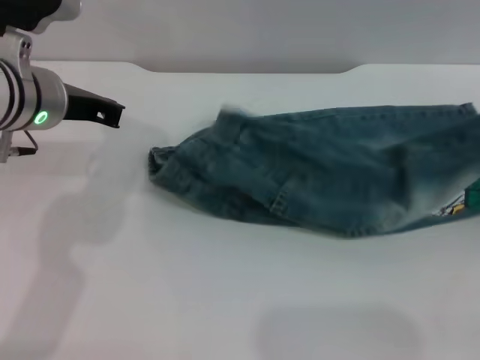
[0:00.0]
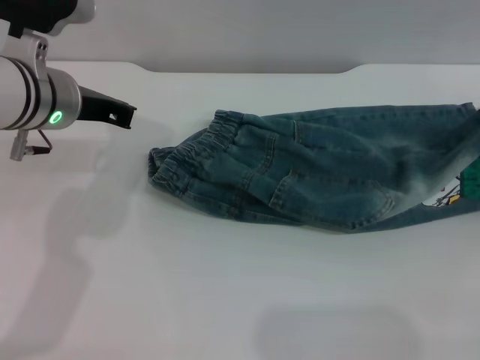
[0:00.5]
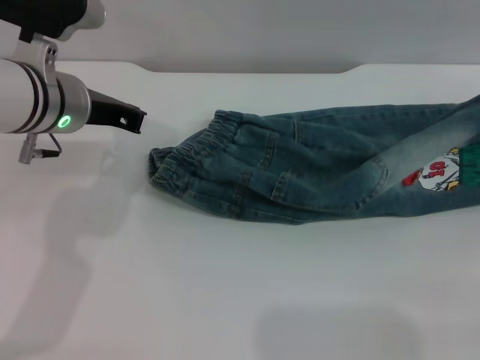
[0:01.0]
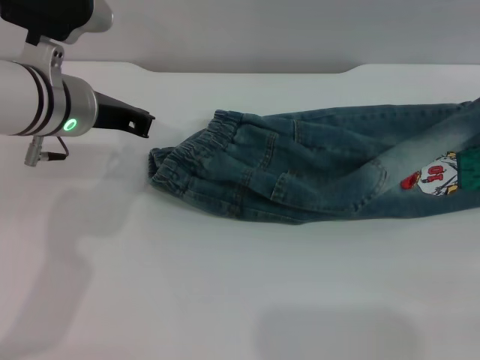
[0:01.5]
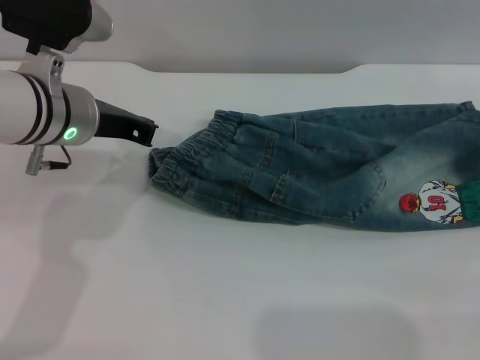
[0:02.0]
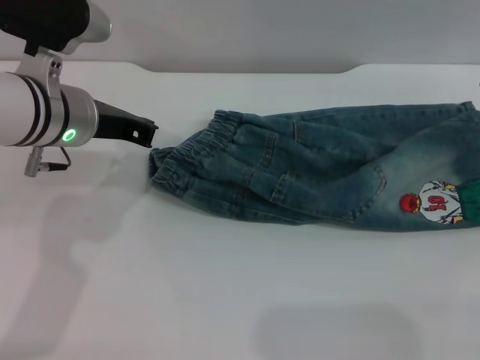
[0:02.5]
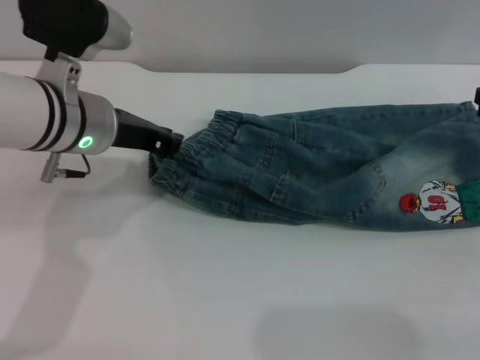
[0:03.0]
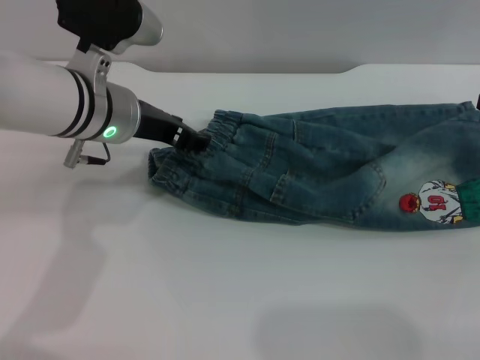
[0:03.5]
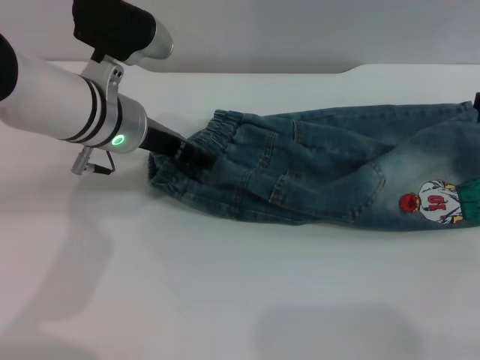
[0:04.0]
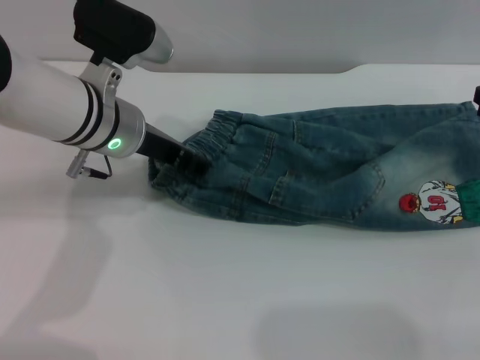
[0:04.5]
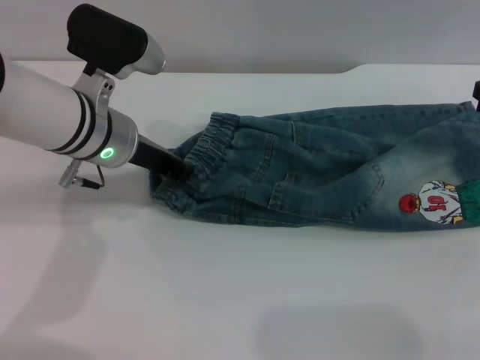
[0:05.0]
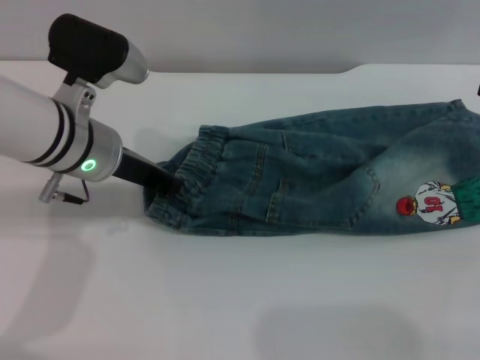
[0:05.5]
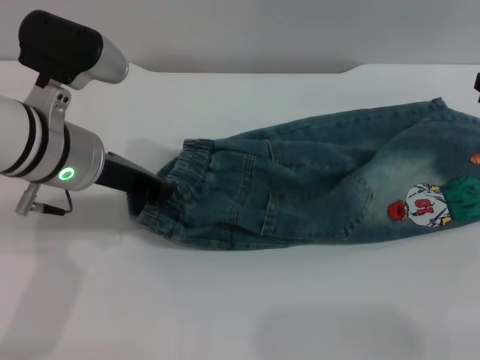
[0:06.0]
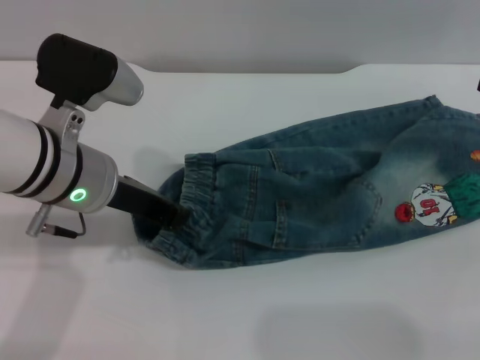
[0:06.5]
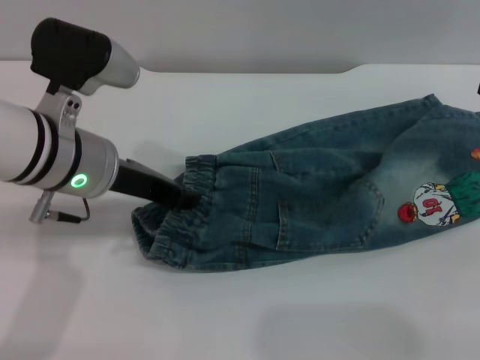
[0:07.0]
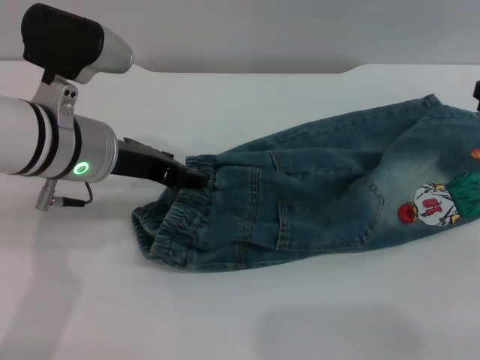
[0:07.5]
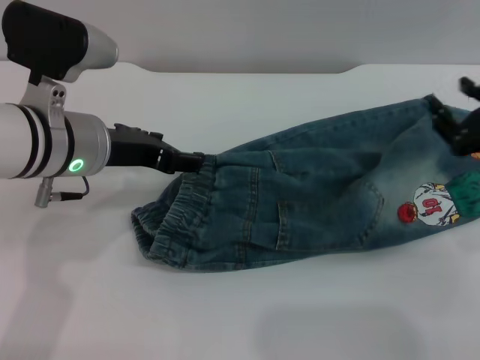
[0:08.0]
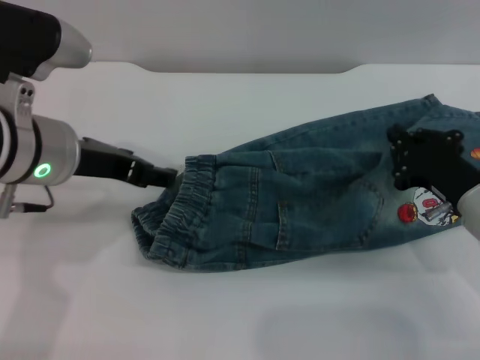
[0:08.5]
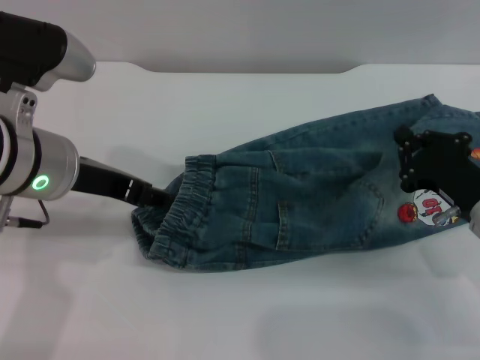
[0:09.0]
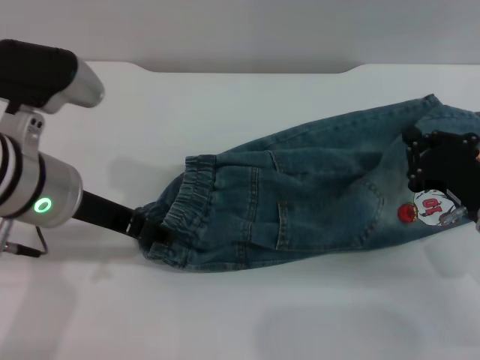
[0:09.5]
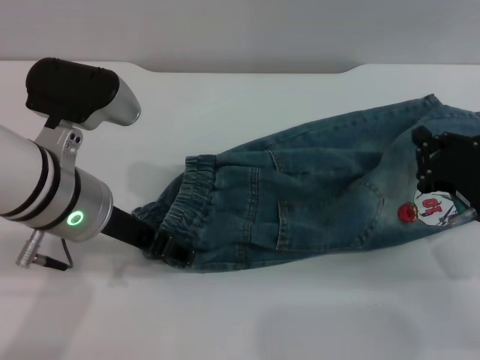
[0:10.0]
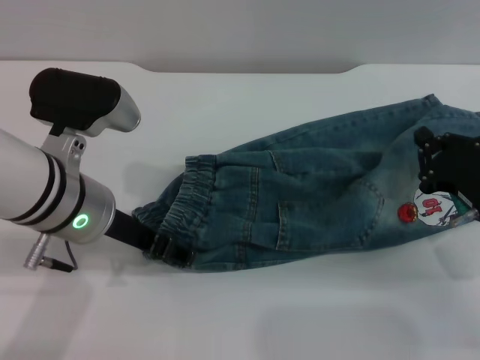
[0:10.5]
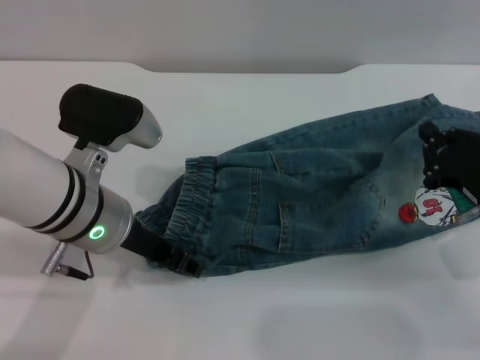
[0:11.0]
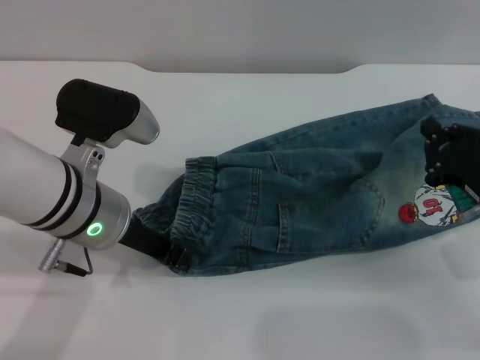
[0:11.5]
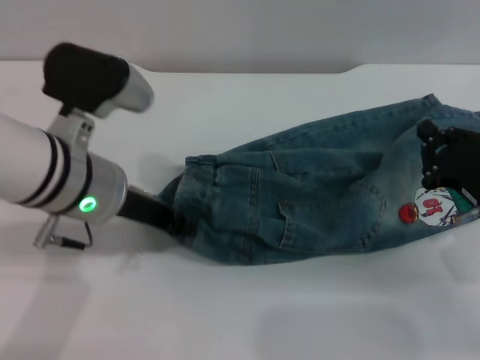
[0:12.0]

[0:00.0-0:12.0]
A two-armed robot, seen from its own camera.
Step, 0:00.0 to 0:02.0: Fold the bottom of the pants upward with both grippers.
0:00.0 to 0:02.0: The right gripper travels forward by roughly 5 cm, and opens up.
0:02.0 to 0:04.0: The left gripper opens up. Meanwhile the right gripper is displaced backward and to the left by approximately 10 cm, and opens up.
0:04.0 to 0:06.0: The left gripper shifts roughly 5 cm backward, and closes.
0:06.0 to 0:08.0: The left gripper opens its fingers, while the right gripper shifts by some 5 cm.
0:08.0 to 0:10.0: The right gripper is displaced downward by roughly 5 cm, and closes up.
0:10.0 to 0:12.0: The left gripper closes its fingers.

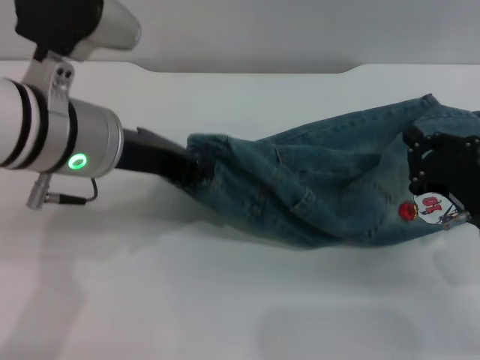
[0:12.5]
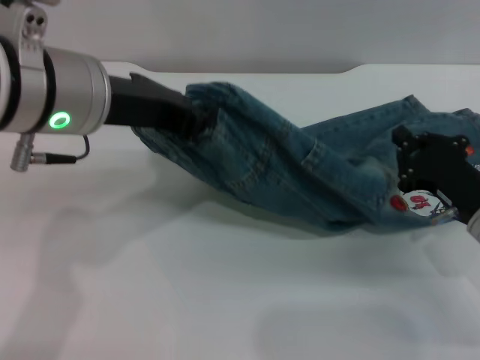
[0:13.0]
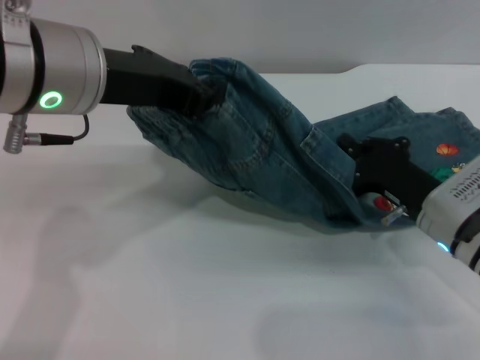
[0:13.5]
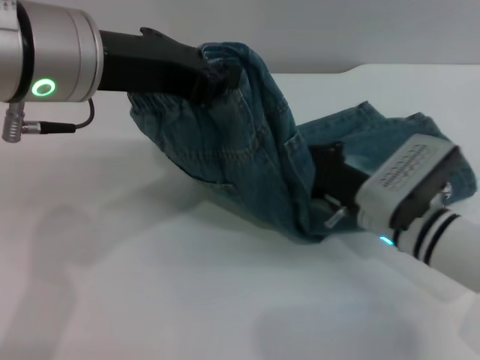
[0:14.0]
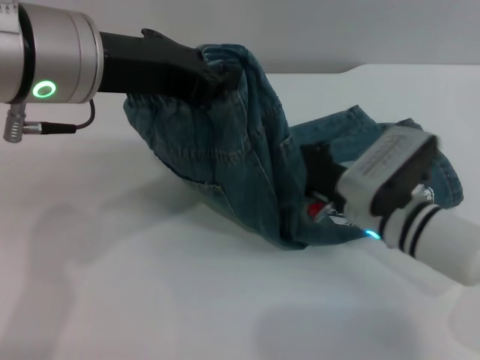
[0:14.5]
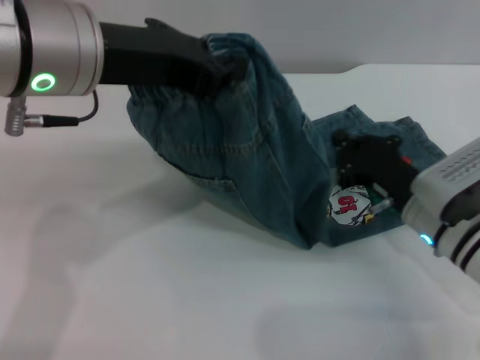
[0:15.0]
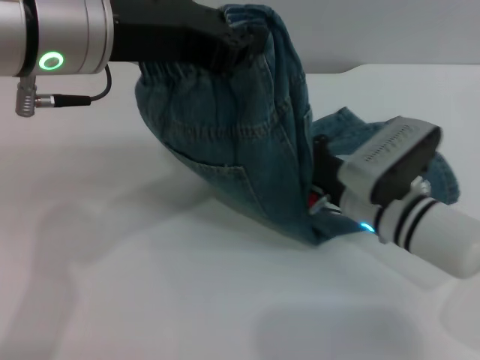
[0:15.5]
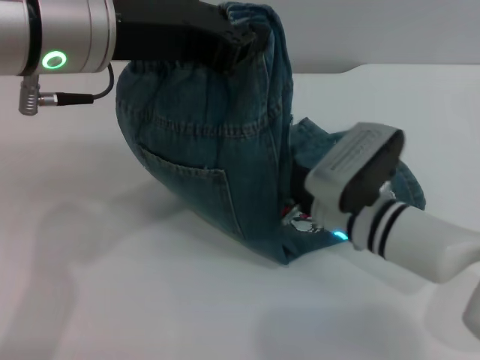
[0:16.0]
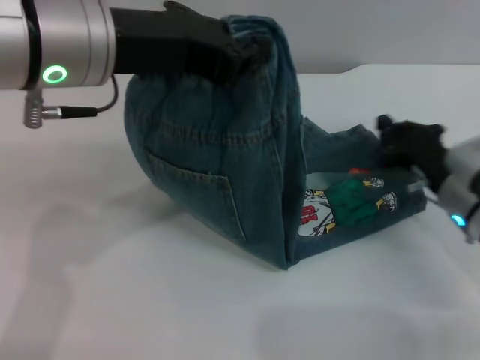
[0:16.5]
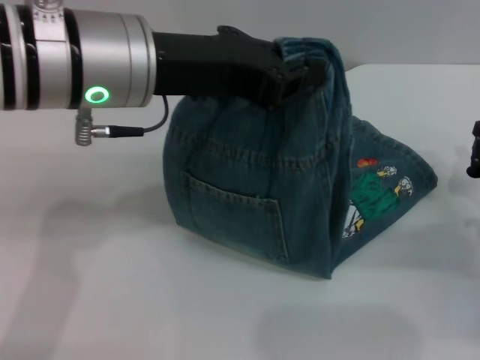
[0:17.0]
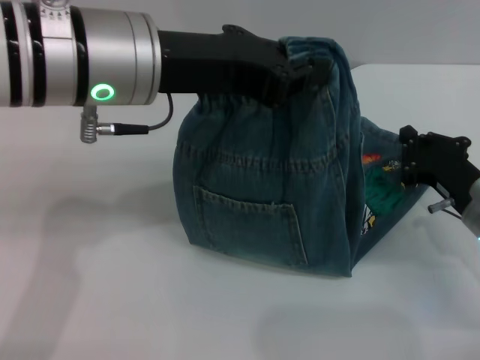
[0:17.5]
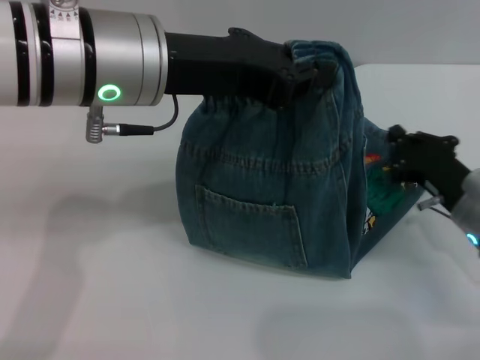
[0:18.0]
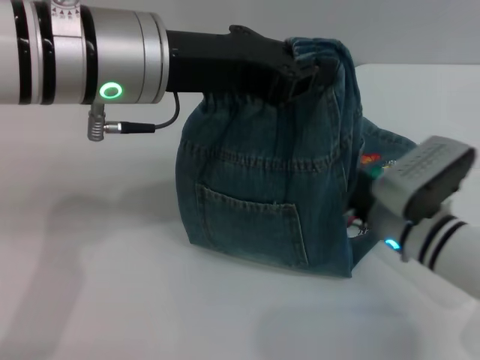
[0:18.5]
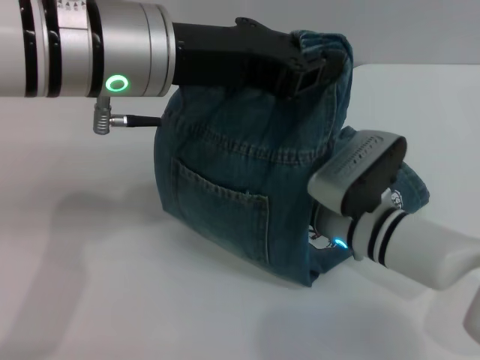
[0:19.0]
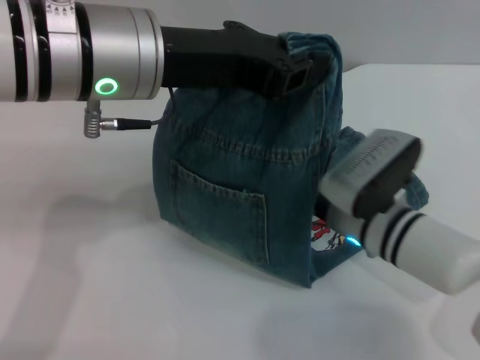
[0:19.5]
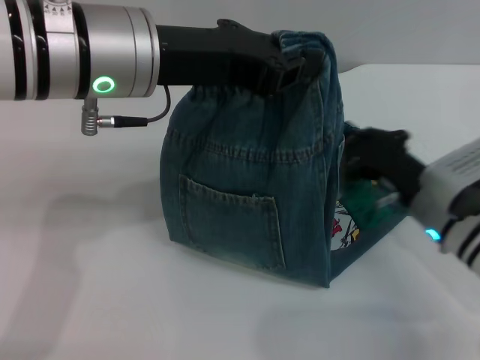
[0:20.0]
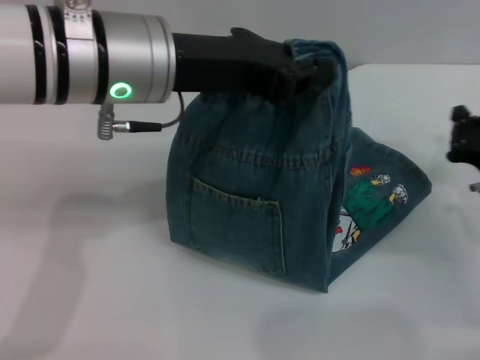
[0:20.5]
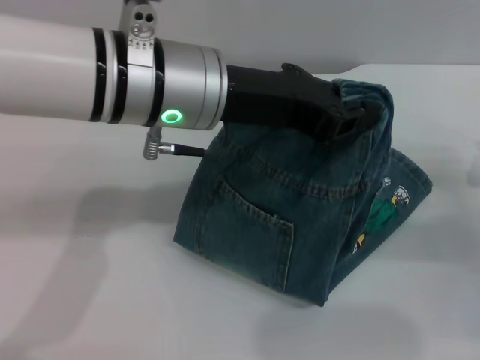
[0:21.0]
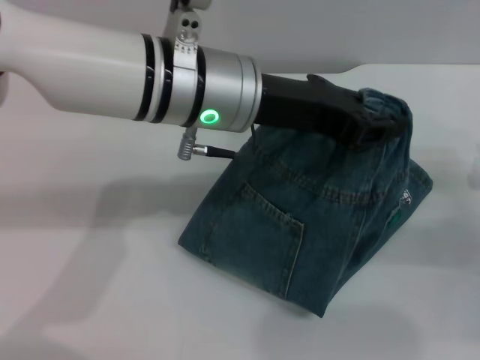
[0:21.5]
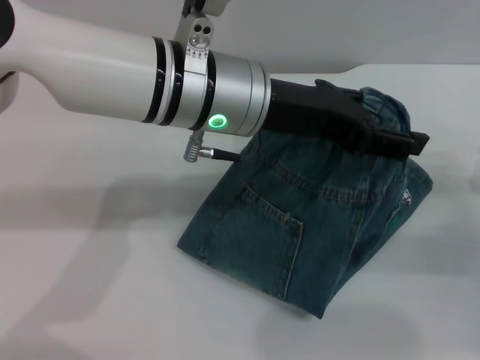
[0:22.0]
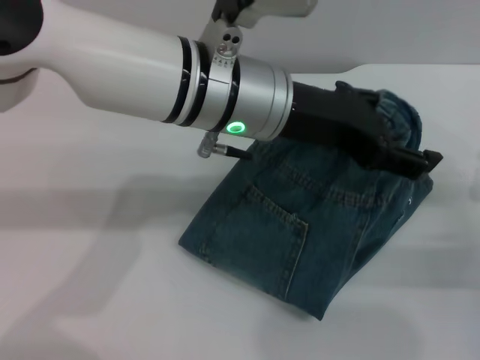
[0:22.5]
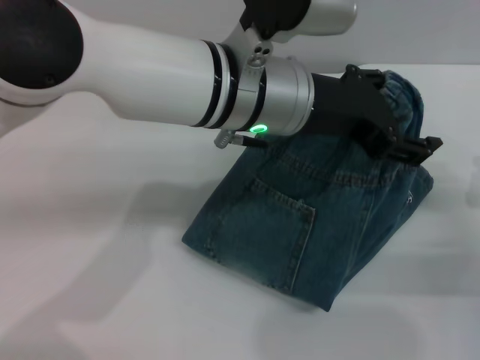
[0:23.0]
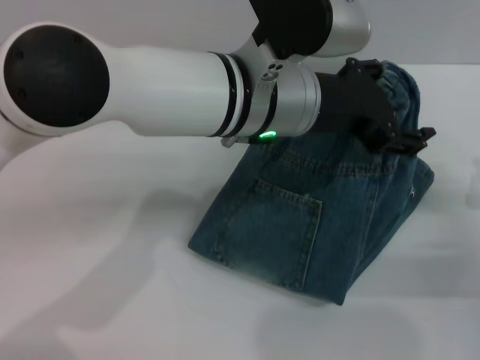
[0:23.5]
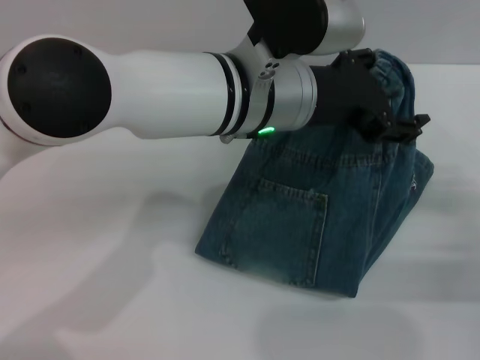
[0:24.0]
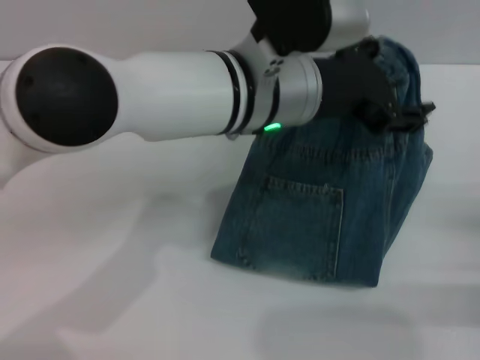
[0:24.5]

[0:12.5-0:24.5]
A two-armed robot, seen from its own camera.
0:12.5 to 0:14.5: The right gripper is displaced to the left and forward by approximately 15 cm. Meanwhile the left gripper is displaced upward by roughly 5 cm.
0:14.5 to 0:16.5: The right gripper goes left and right, about 10 cm each way, reversing 2 times.
0:16.5 to 0:18.5: The right gripper shifts some 5 cm to the left.
0:18.5 to 0:20.5: The right gripper travels to the right by about 10 cm.
0:20.5 to 0:22.5: The left gripper travels to the right by approximately 10 cm, and opens up. Meanwhile the right gripper ends up some 5 cm from where it was.
0:22.5 to 0:24.5: The right gripper moves some 5 cm.

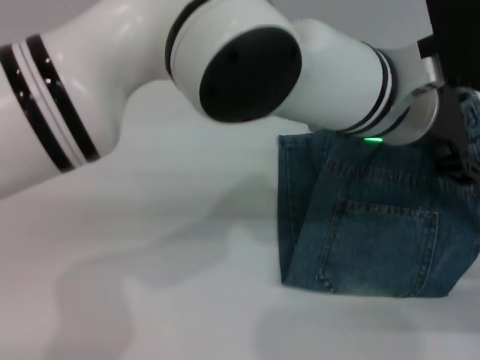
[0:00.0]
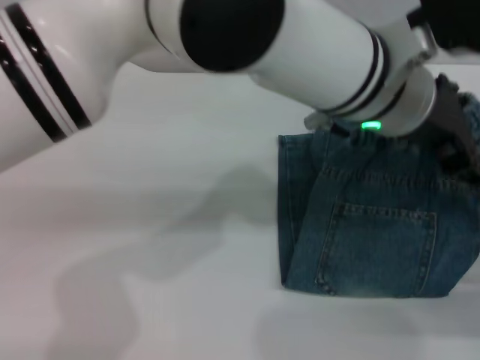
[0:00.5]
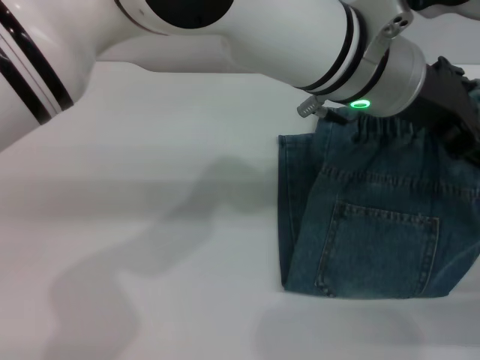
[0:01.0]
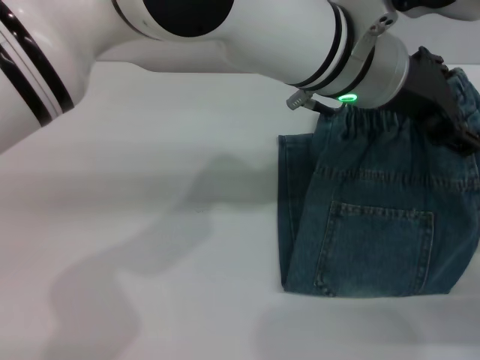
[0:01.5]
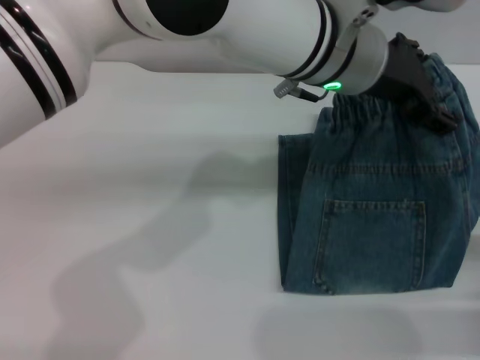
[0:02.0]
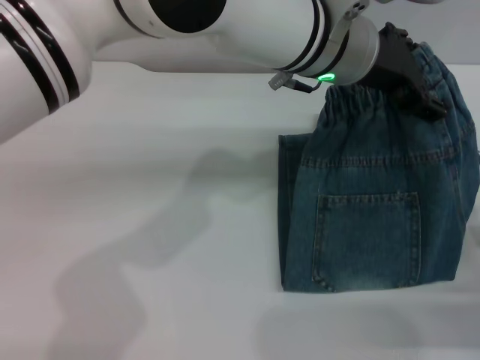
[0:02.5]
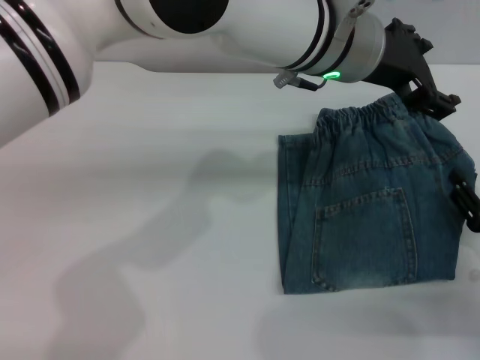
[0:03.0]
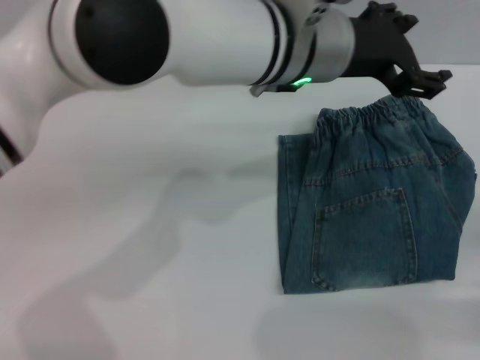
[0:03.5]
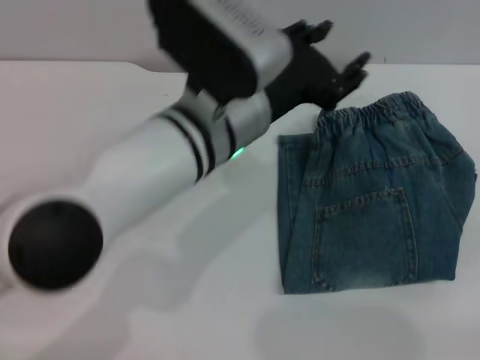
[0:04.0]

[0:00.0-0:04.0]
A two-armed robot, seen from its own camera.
Step, 0:00.0 to 0:03.5: Fold the pants from left to right with the left gripper.
0:00.0 to 0:02.0: The right gripper opens its fingers. Meanwhile the left gripper changes place by about 5 cm.
0:02.0 to 0:04.0: The right gripper shifts roughly 5 cm to the right, and closes, while the left gripper shifts some 5 cm to the left.
